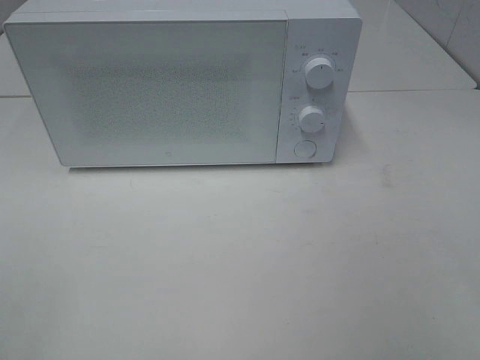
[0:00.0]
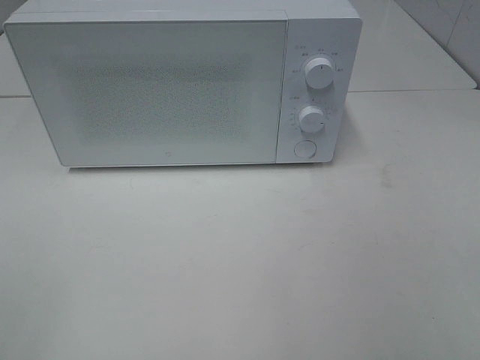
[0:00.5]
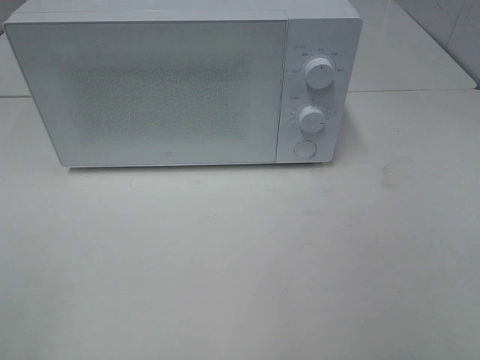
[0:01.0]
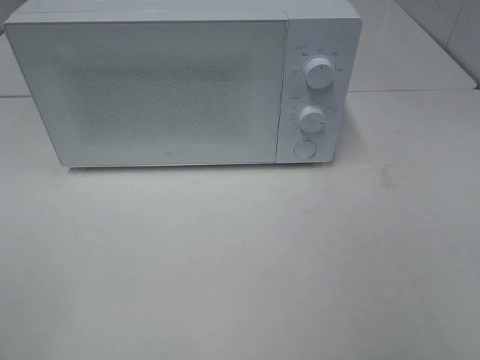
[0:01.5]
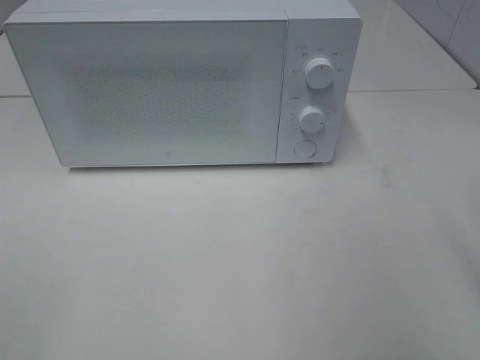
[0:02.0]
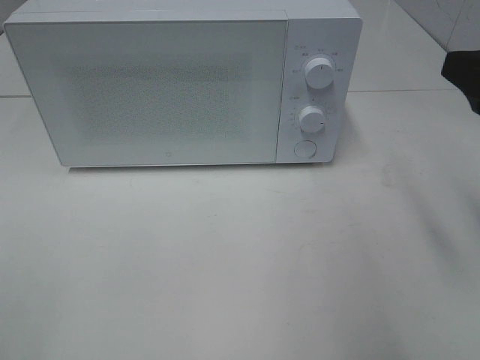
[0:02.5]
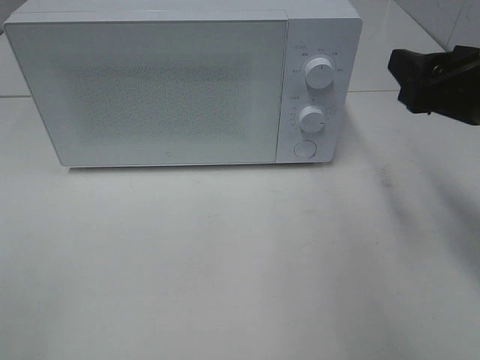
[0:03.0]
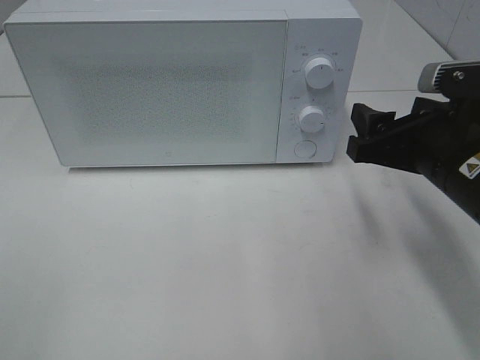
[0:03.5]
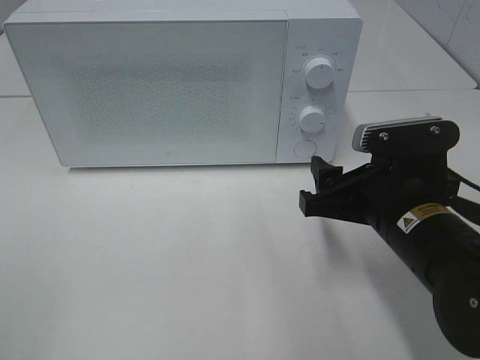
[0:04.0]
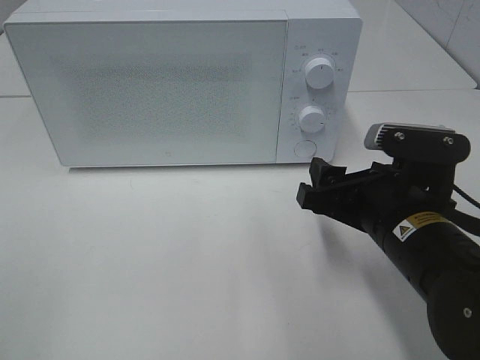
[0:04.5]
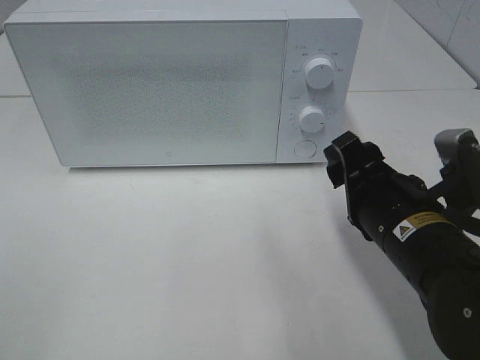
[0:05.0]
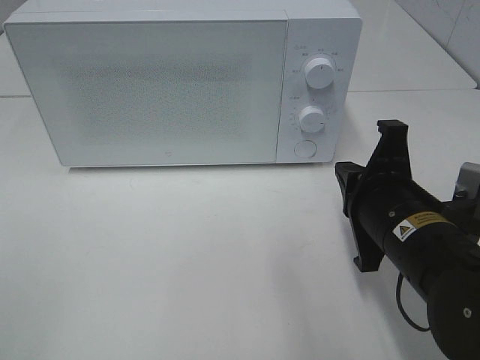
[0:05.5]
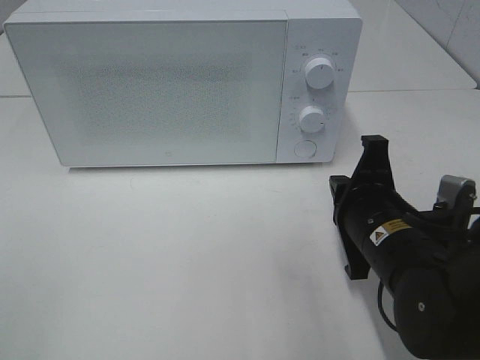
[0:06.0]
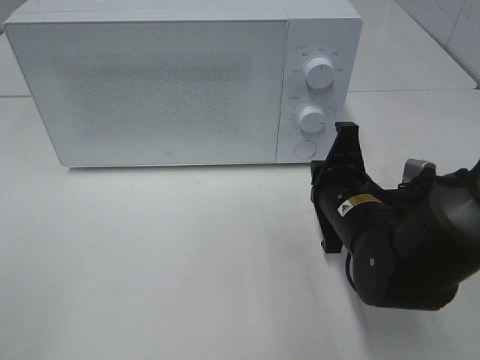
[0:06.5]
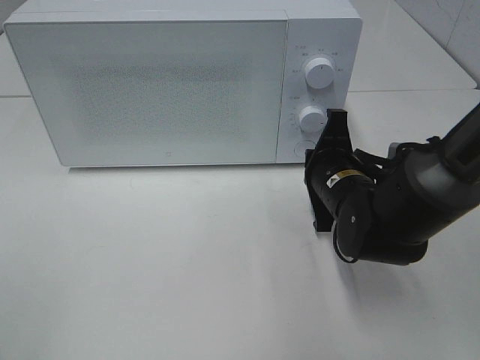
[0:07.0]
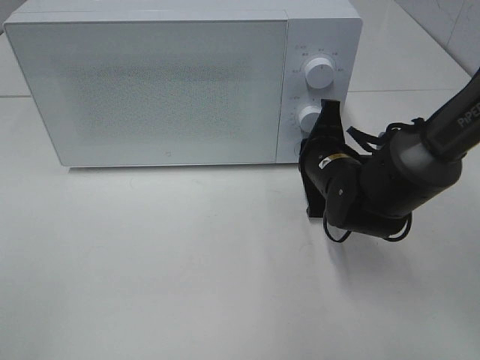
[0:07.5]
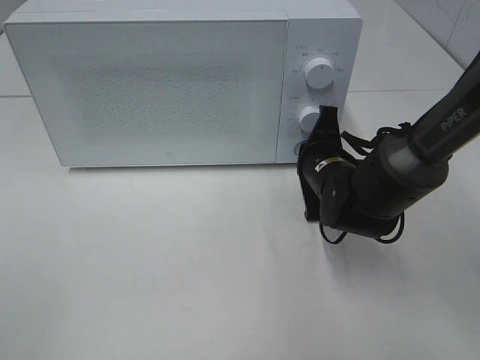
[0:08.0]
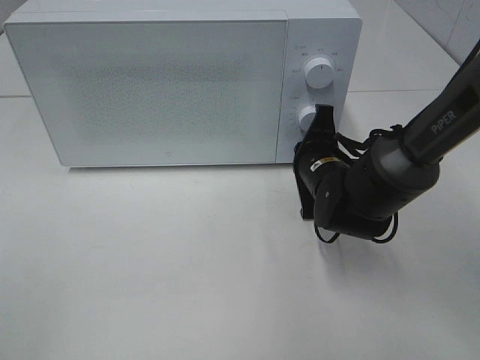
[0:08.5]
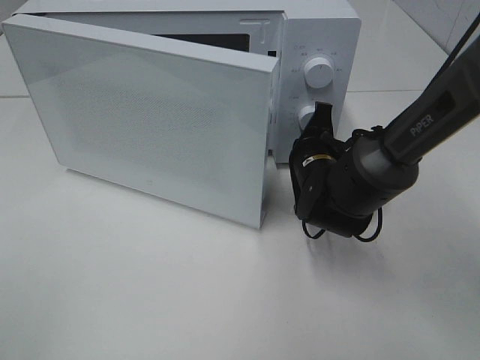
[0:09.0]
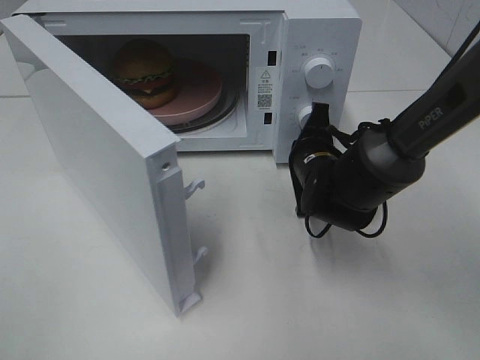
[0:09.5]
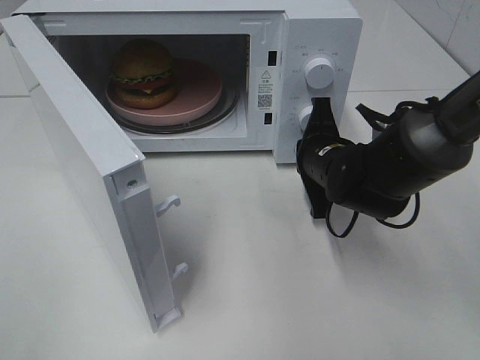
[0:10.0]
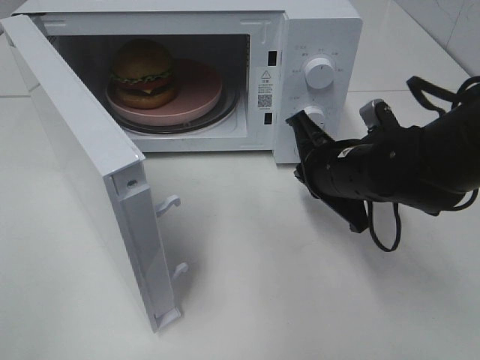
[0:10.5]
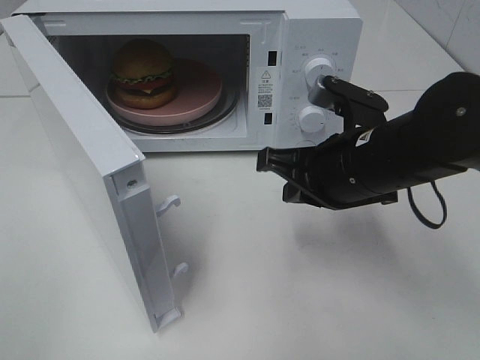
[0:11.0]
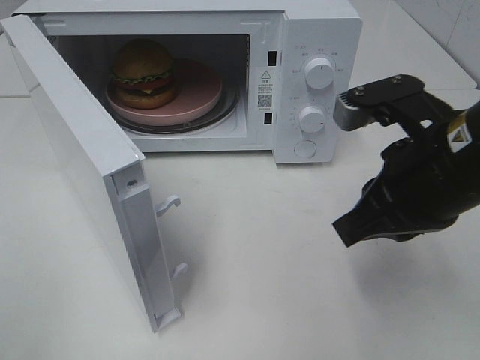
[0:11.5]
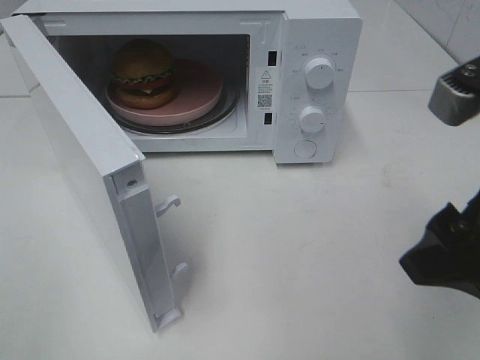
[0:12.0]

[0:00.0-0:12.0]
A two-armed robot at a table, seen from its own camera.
Task of the whole recording: Heat the burger.
Step, 0:00.0 to 0:10.0: Right hand: press the switch.
0:02.0 to 0:04.0: The right gripper travels downward, to the left and forward by some 20 cm.
0:04.0 to 0:06.0: The right gripper closes.
0:06.0 to 0:08.0: The right gripper travels forward by approximately 15 cm.
0:10.0 to 0:12.0: The right gripper heads backward and upward, covering approximately 25 cm, and opens.

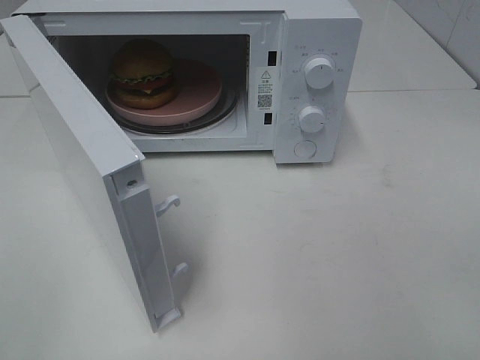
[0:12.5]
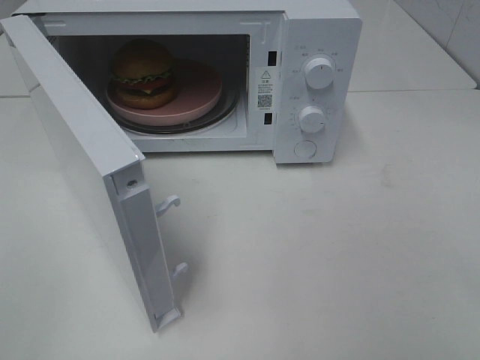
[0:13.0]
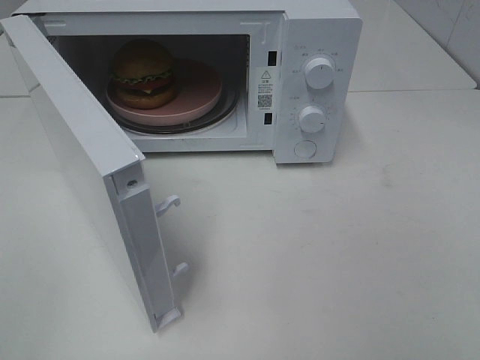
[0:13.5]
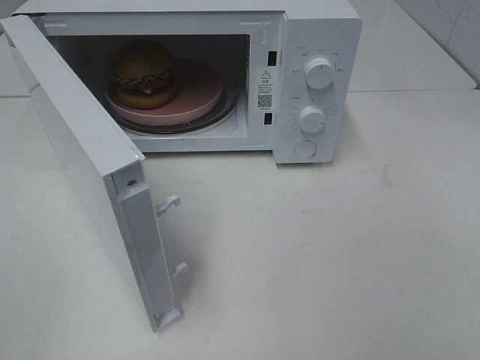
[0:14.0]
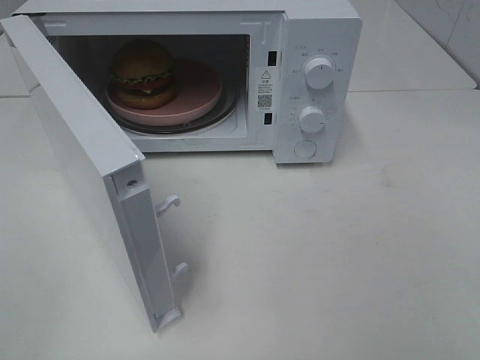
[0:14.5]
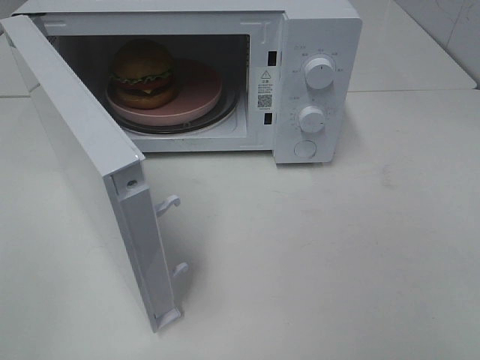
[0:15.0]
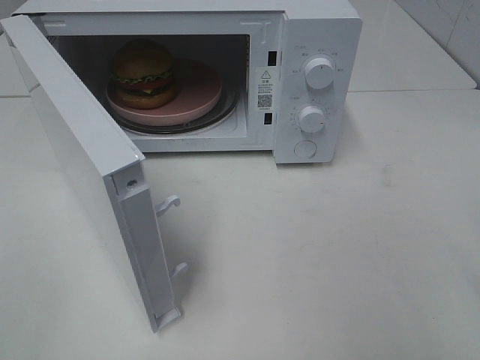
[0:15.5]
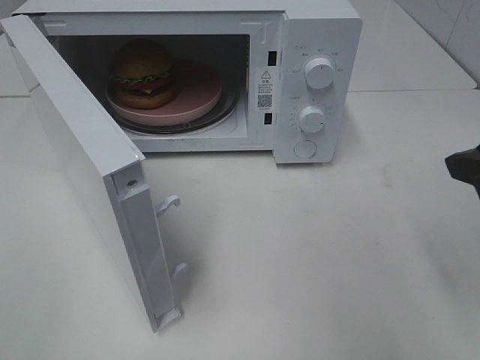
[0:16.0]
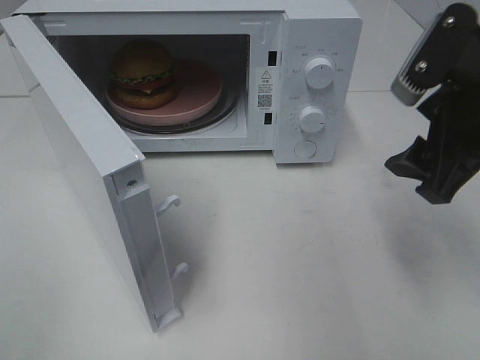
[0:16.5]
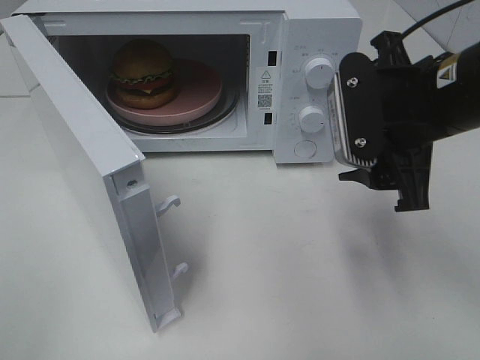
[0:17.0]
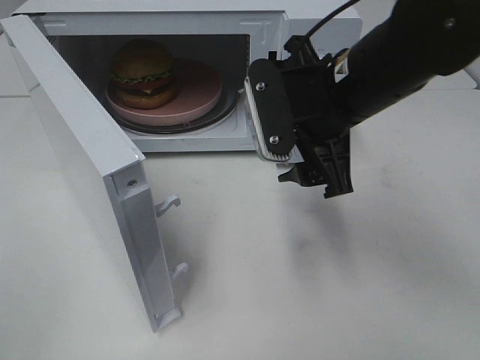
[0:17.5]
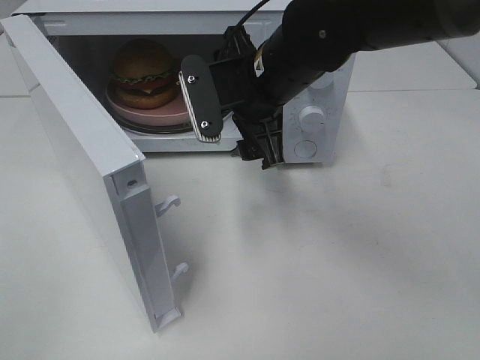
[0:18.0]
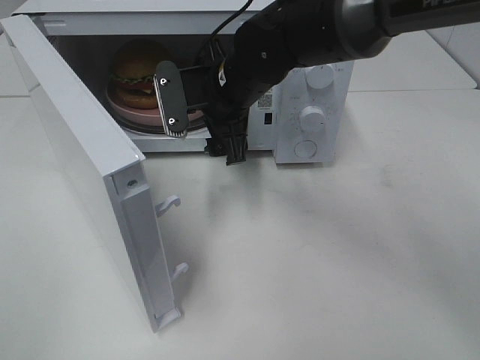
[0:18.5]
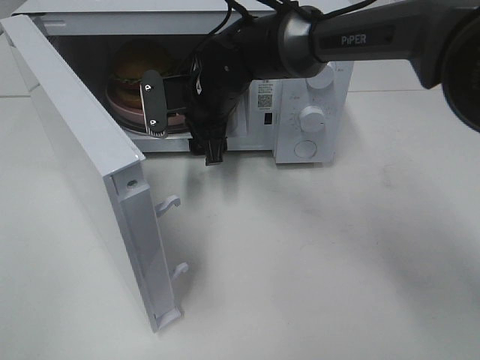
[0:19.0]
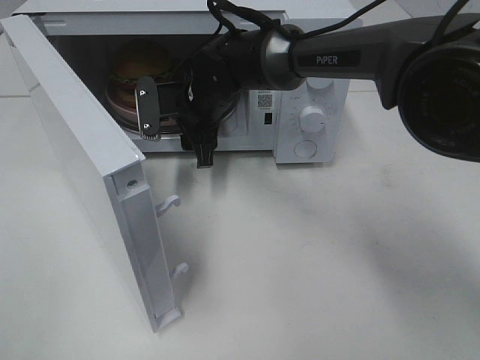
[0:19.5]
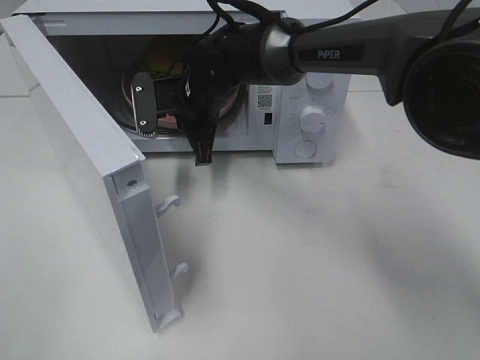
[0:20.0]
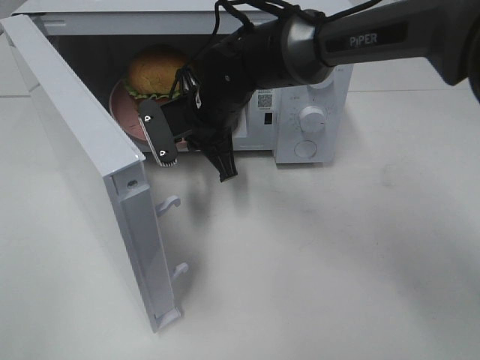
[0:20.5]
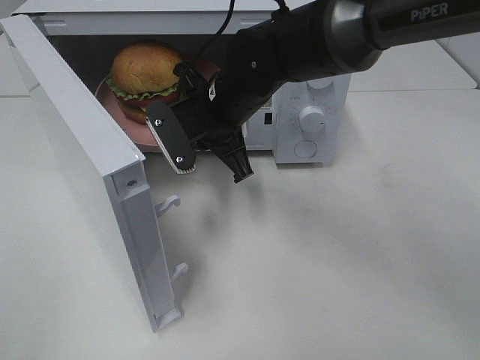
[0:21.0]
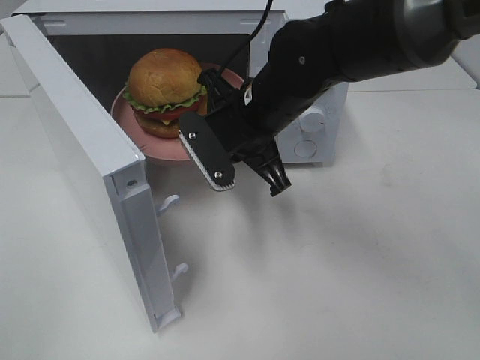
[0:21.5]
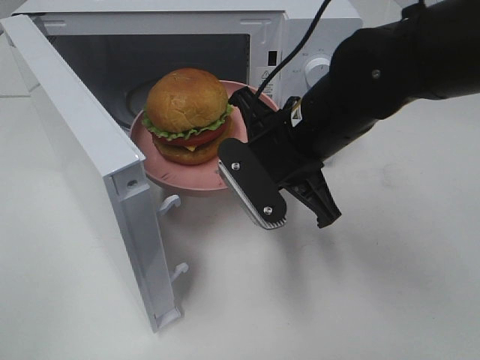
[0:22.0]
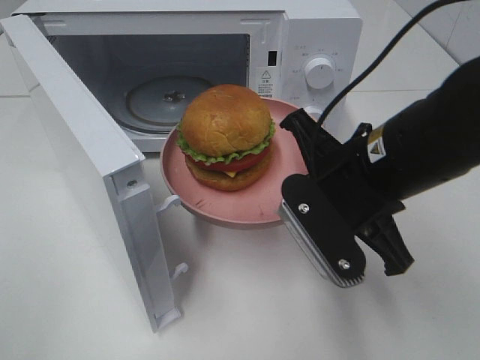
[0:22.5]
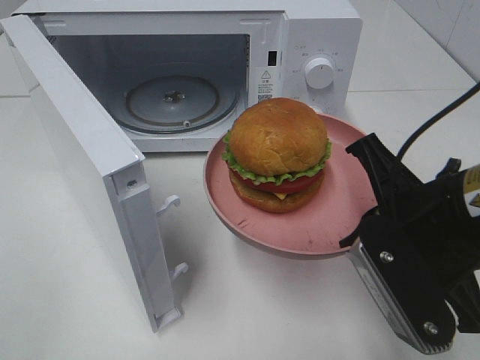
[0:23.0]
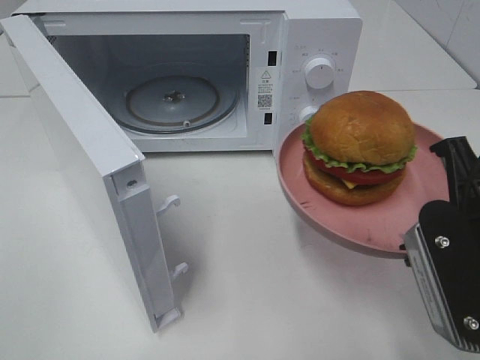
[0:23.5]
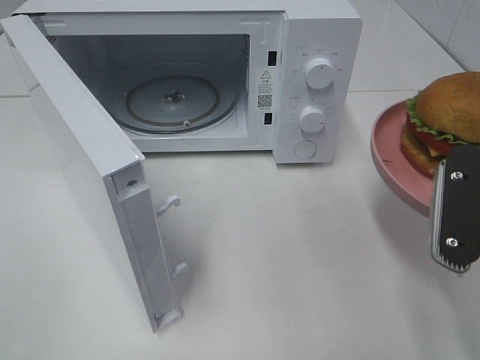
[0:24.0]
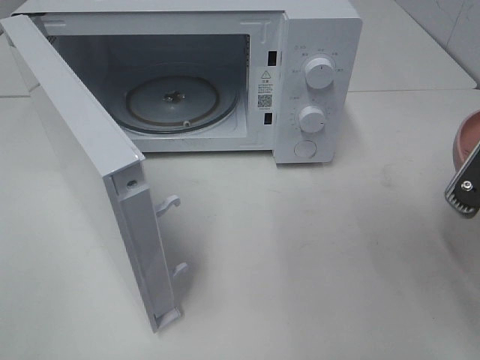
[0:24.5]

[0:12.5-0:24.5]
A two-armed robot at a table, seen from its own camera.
Task of the whole recording: Heat the burger.
Step, 0:12.5 to 0:19.5: Right hand: grab the plate with the hamburger.
0:14.5 to 0:16.5: The right gripper shifts some 25 cm forward.
0:16.5 to 0:18.5: The right gripper is displaced to the left and forward by some 25 cm.
0:18.5 to 0:20.5: The right gripper closes its fingers.
0:20.5 to 0:22.5: The right gripper travels backward and to the right by some 20 cm.
0:22.5 to 0:24.5: The right gripper moves to the right and backward, about 15 cm.

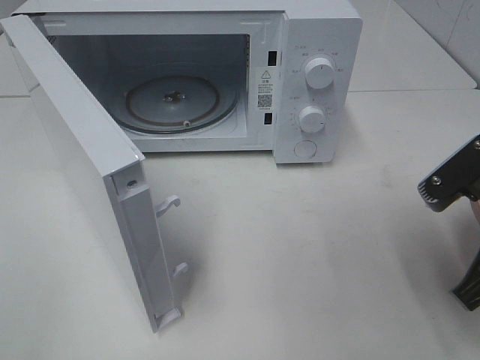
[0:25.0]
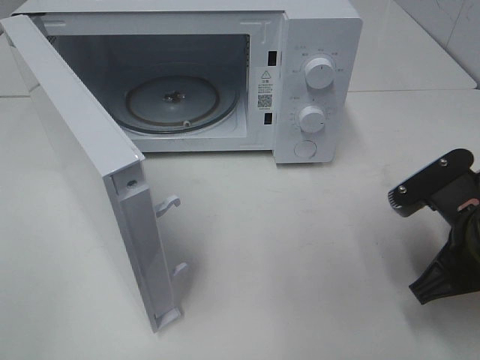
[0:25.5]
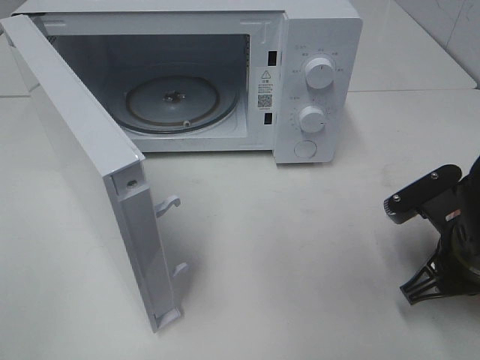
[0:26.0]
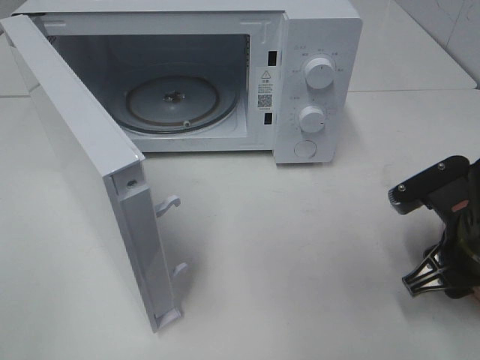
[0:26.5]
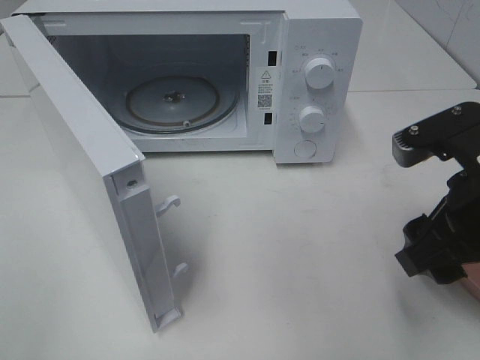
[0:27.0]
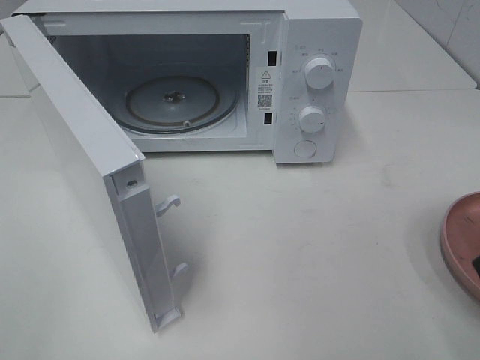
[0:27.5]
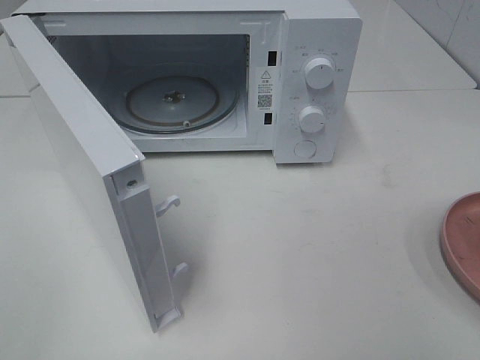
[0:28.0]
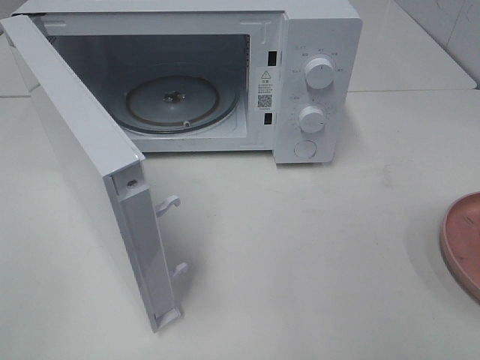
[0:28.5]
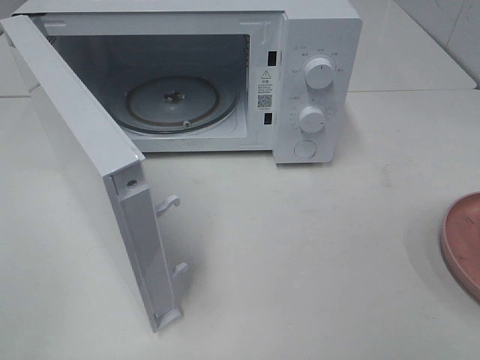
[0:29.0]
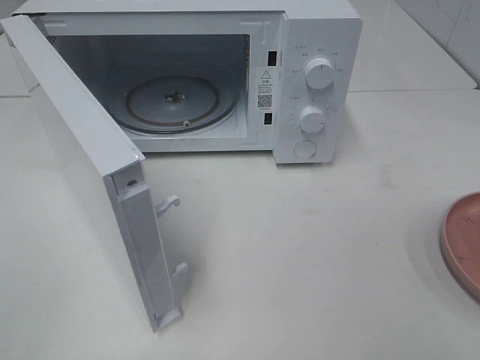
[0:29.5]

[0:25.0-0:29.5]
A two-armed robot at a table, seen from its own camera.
Task of the whole recording: Heat the burger.
0:25.0 to 0:27.0: The right gripper moves about 5 cm downward and comes back, and opens.
0:27.0 to 0:29.5: The right gripper shifts about 20 cm backward and to the right.
